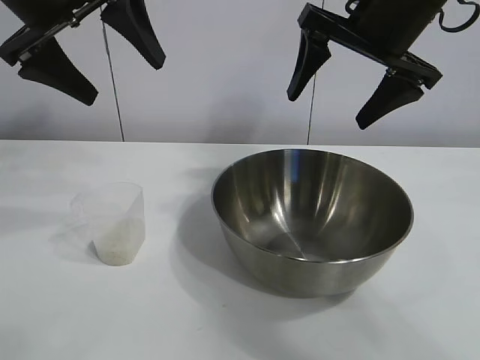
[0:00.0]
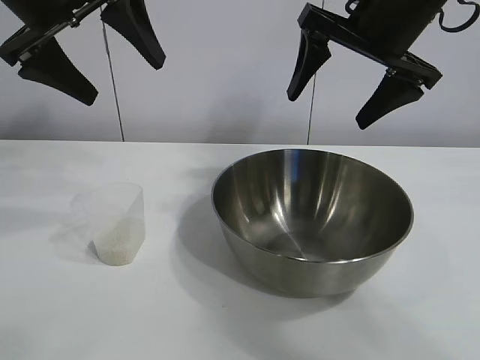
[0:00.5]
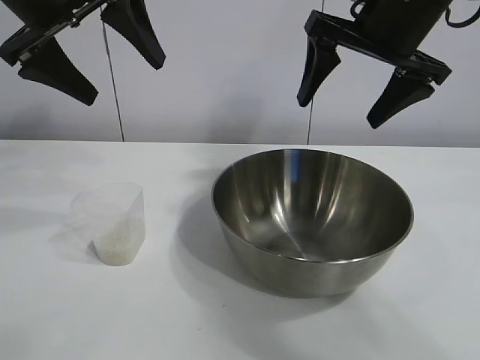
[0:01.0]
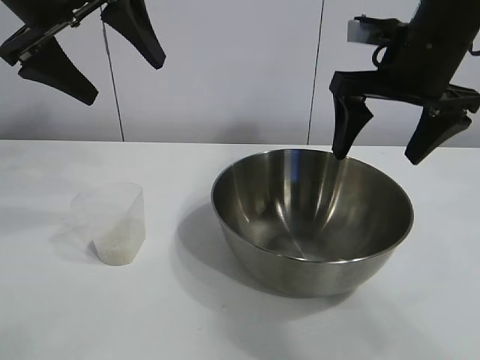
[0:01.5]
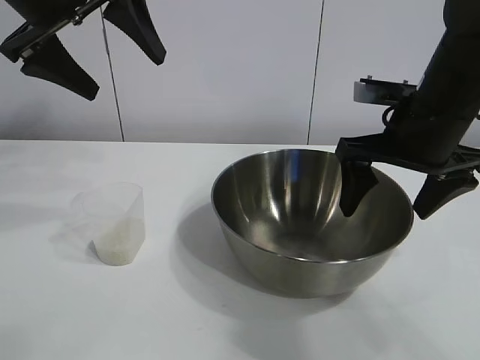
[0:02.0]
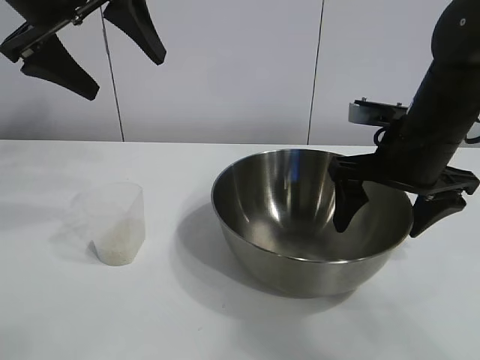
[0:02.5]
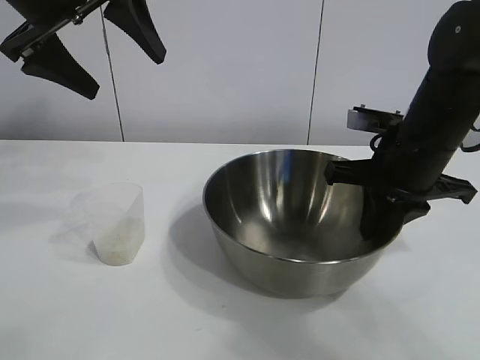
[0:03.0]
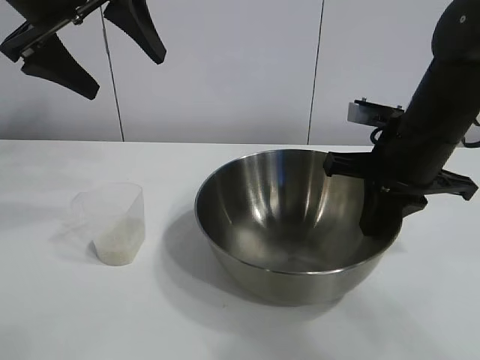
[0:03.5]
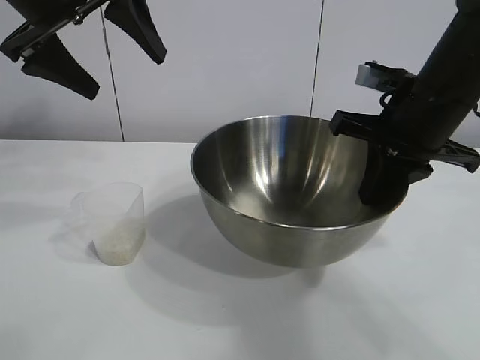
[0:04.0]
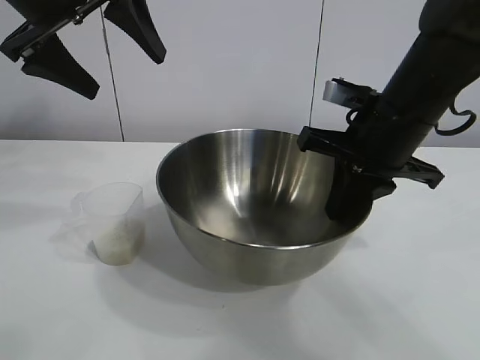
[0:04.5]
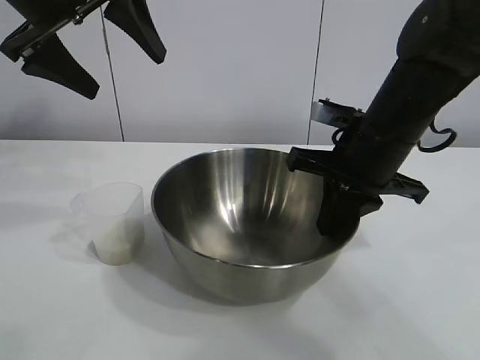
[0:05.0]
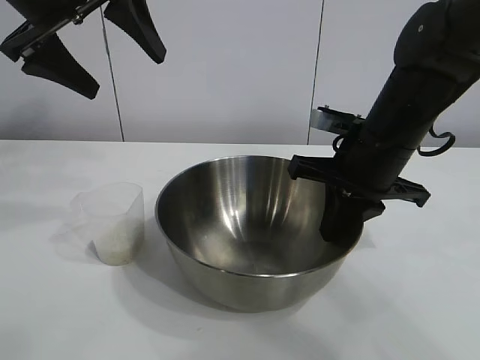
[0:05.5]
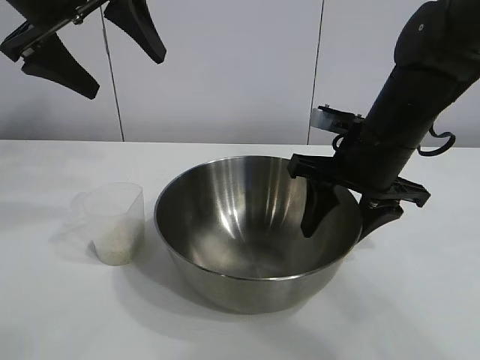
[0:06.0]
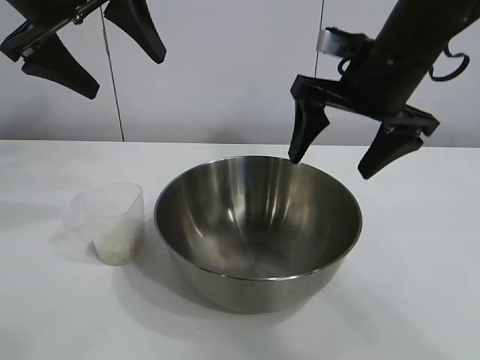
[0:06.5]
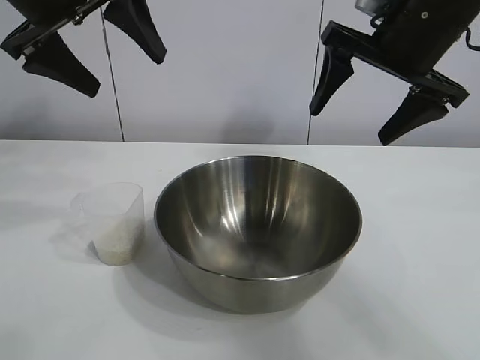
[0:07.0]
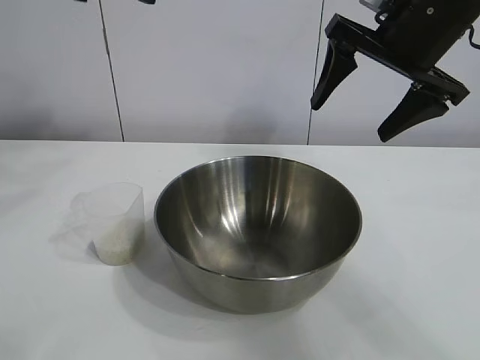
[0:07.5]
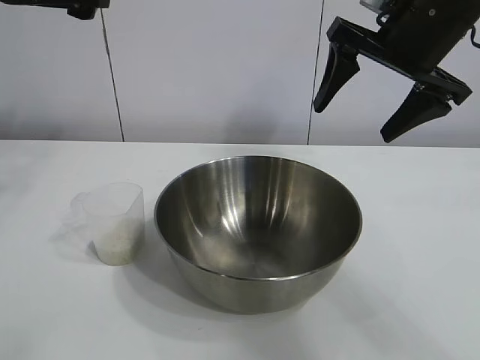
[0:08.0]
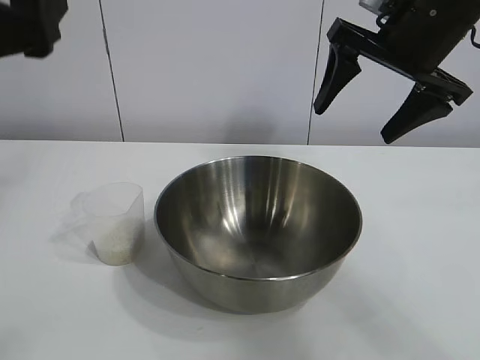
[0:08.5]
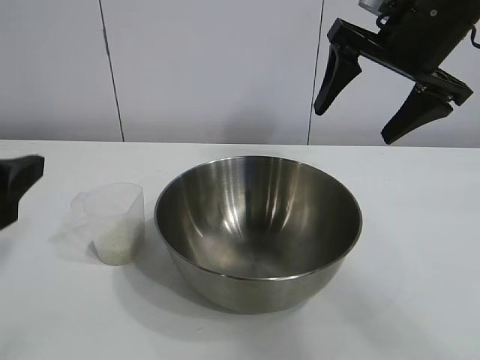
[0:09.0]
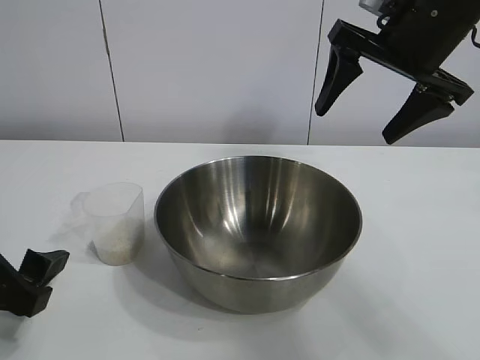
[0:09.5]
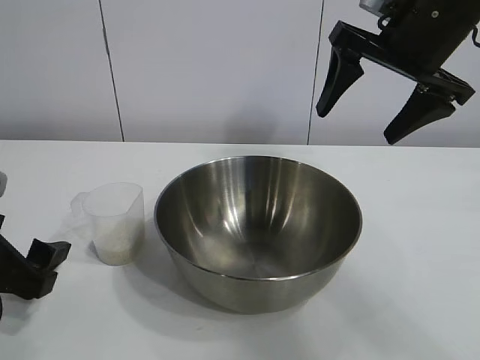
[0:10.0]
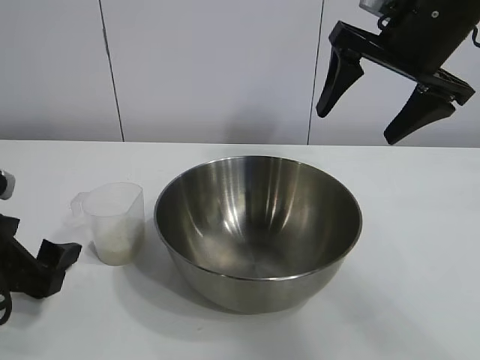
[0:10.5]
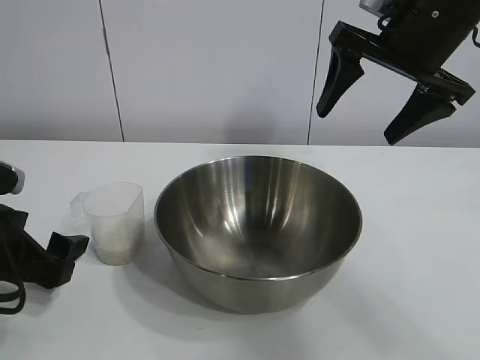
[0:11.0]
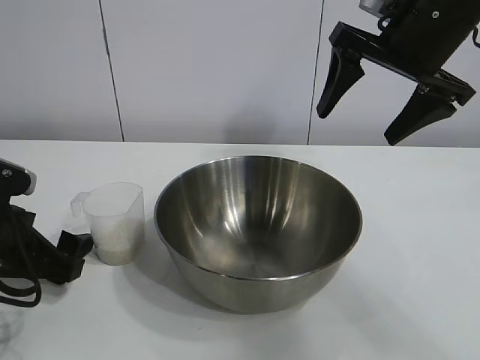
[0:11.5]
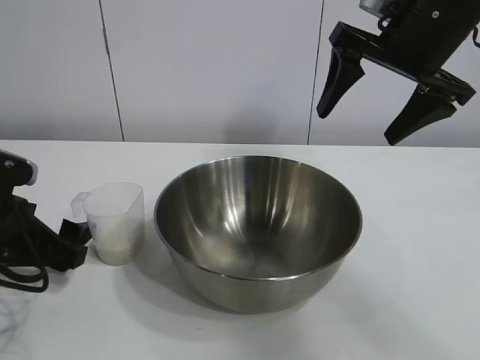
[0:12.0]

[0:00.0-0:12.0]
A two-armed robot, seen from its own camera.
Task of the whole recording: the right gripper grasp the rice container and place it in the center of the table, the left gripper grasp the rice scoop and pour the rice into the rice container.
Step, 1.0 to 5.5 s: Move the bowl in the center of view with right gripper.

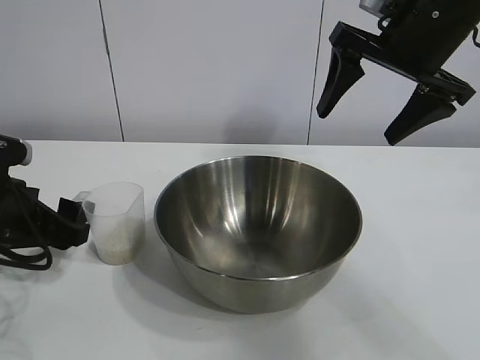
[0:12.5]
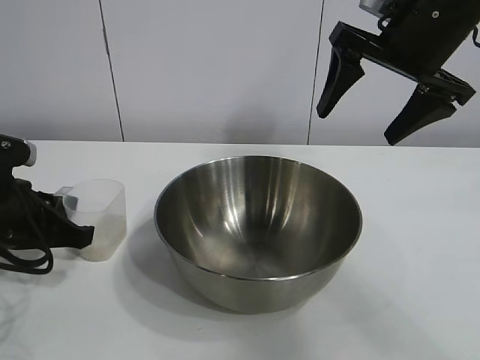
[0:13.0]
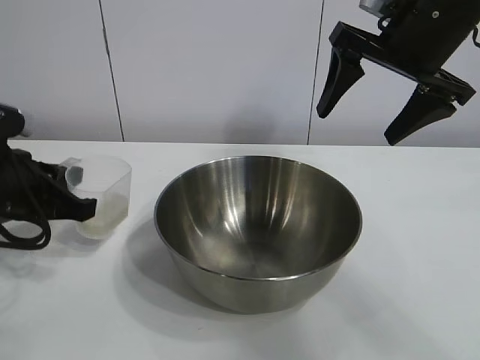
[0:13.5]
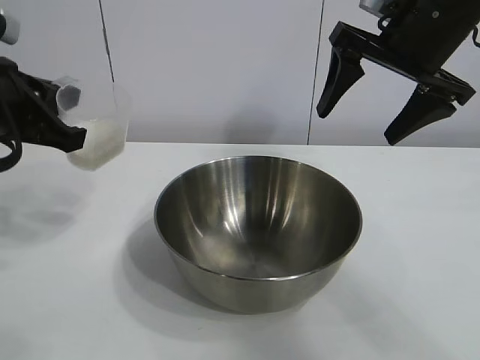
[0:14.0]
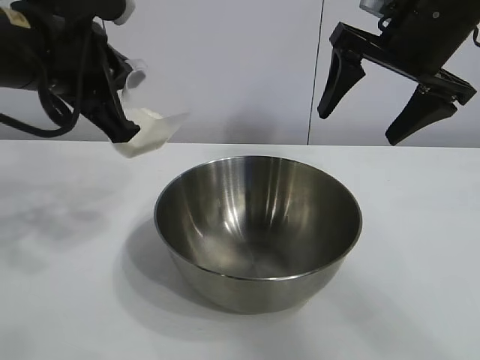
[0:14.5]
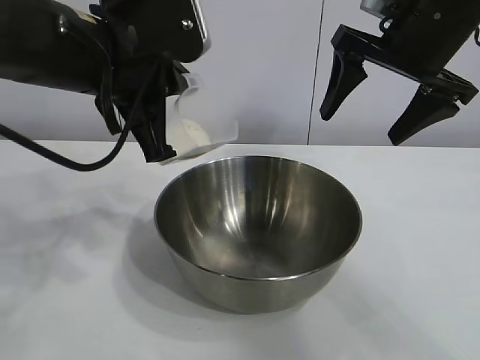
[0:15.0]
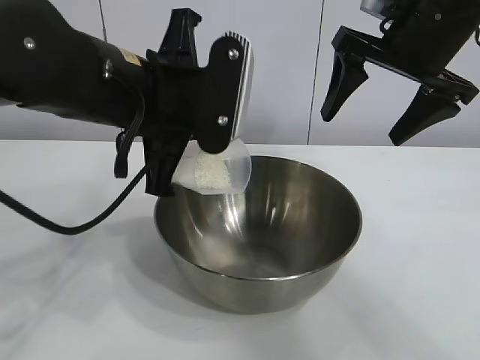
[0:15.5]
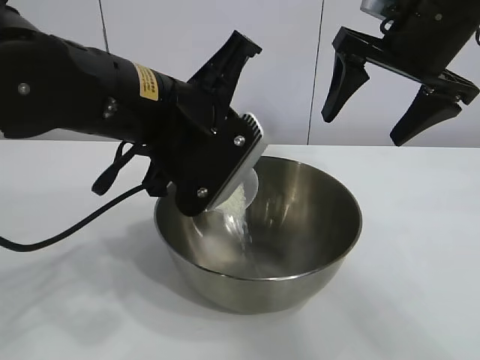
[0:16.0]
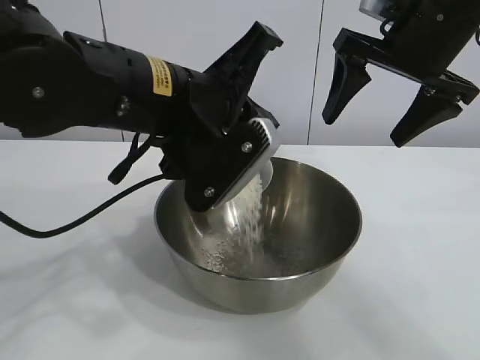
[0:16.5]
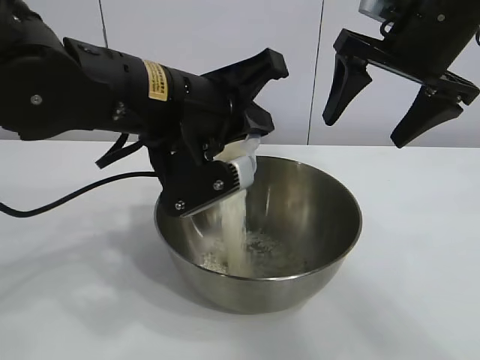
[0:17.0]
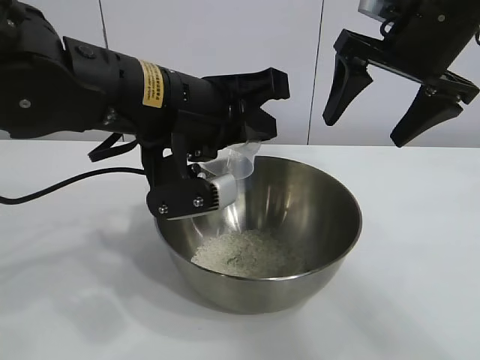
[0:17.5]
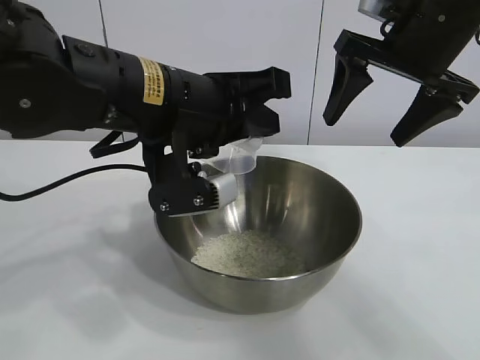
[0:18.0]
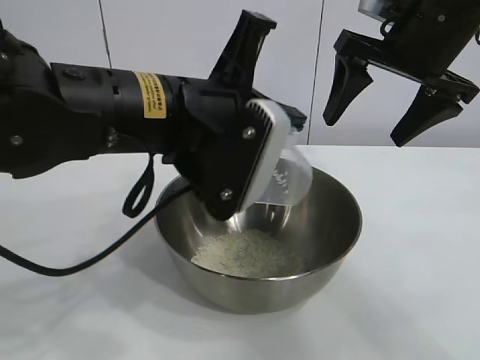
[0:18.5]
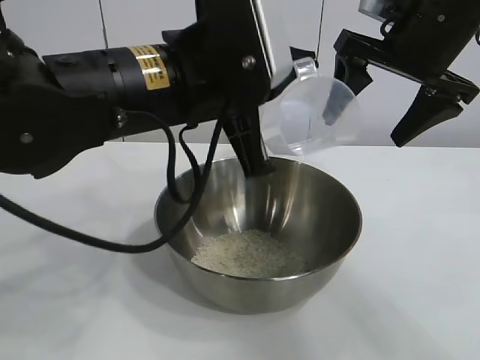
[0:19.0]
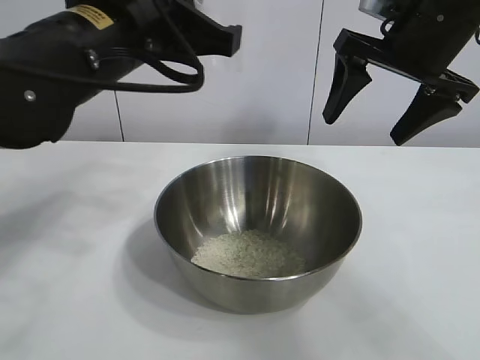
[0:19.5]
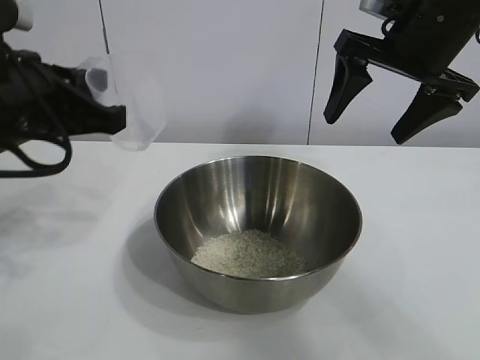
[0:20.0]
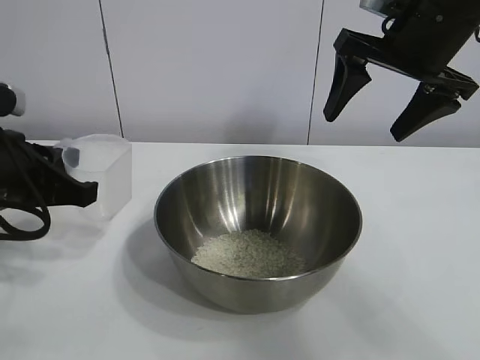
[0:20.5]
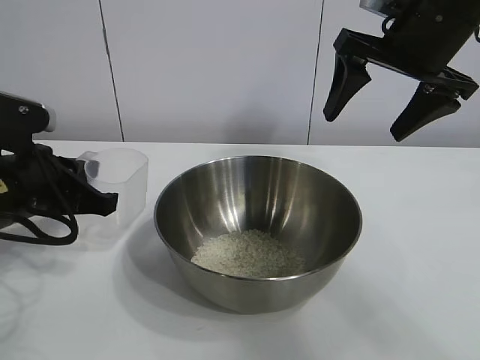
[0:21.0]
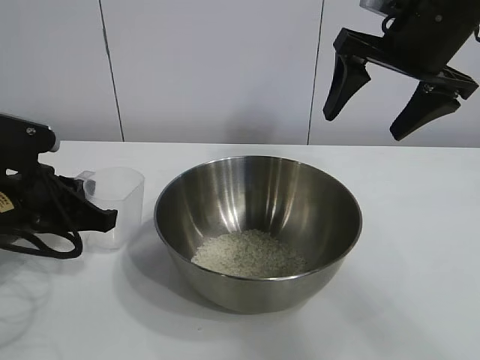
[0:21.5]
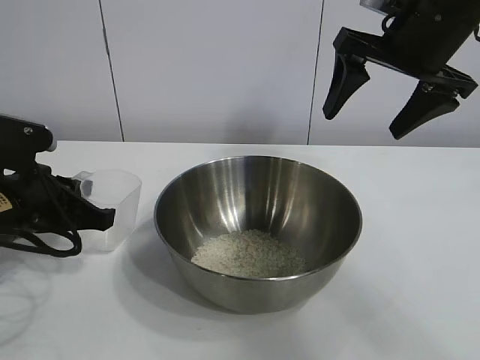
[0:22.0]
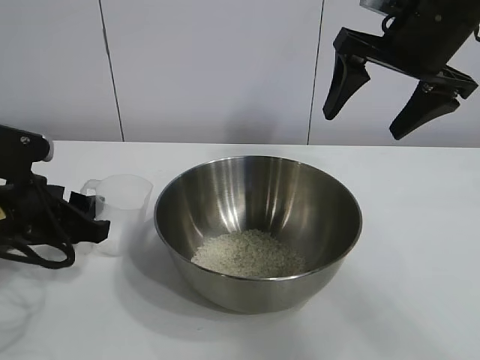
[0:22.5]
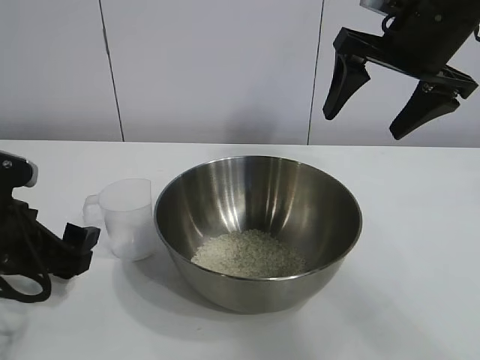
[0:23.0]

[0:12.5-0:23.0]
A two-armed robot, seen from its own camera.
Task of the whole recording: the right gripper grasp the rice container and place it in the center of the table, the left gripper grasp the rice scoop and pour the rice into the rice container.
Step, 13.5 to 18.0 s: Pour the rice from the cup into the bowl with the left gripper.
Step, 18.5 to 22.5 s: Place the cup on the table with the left gripper.

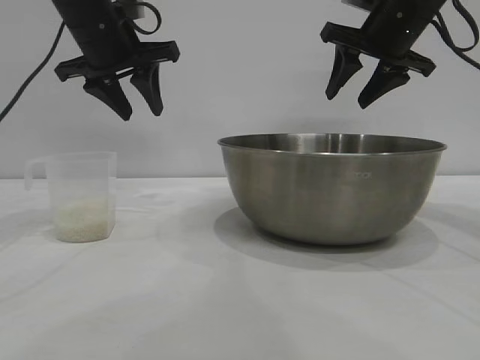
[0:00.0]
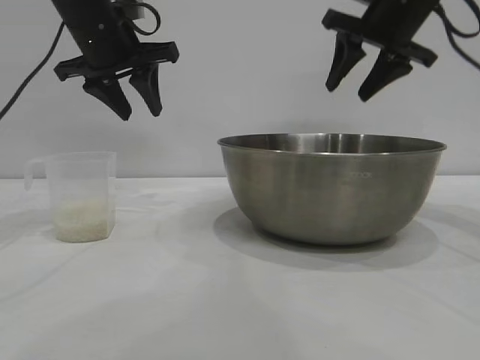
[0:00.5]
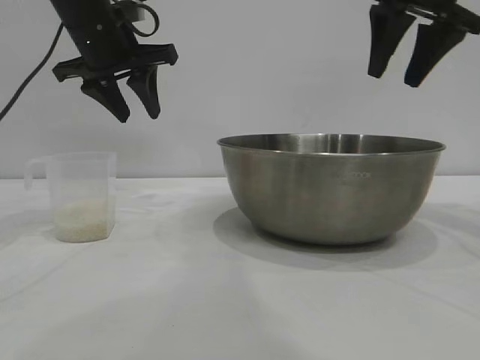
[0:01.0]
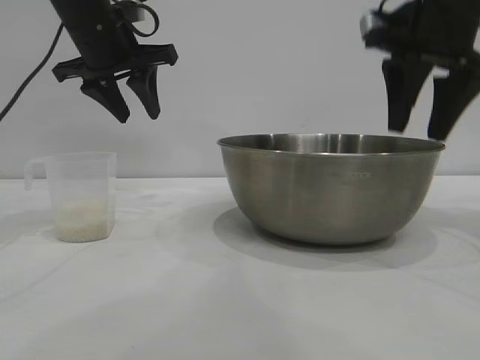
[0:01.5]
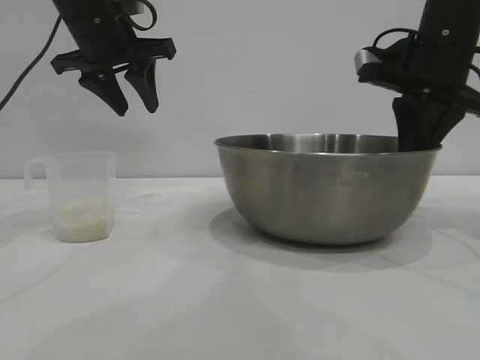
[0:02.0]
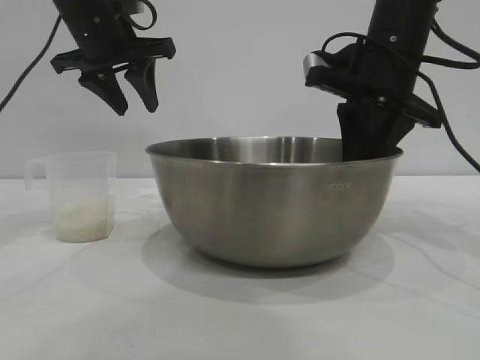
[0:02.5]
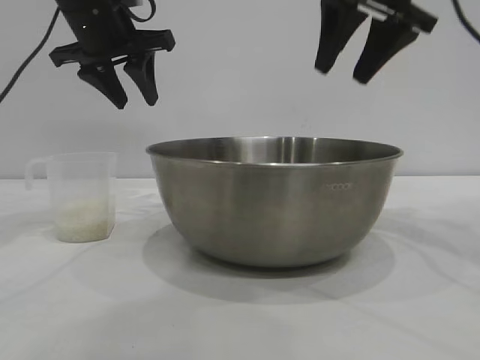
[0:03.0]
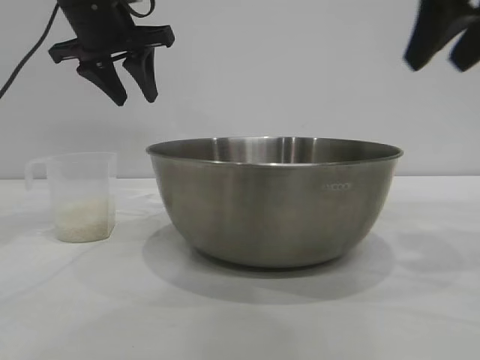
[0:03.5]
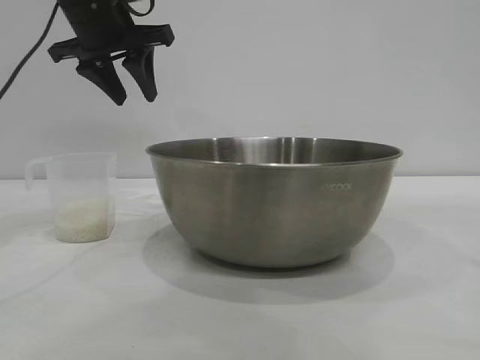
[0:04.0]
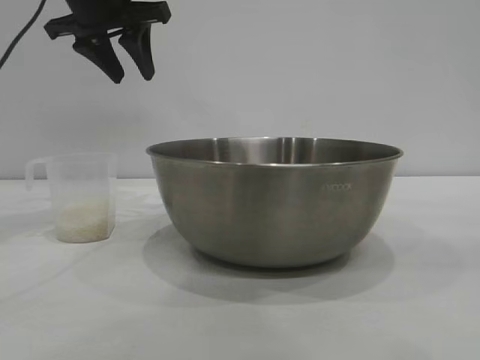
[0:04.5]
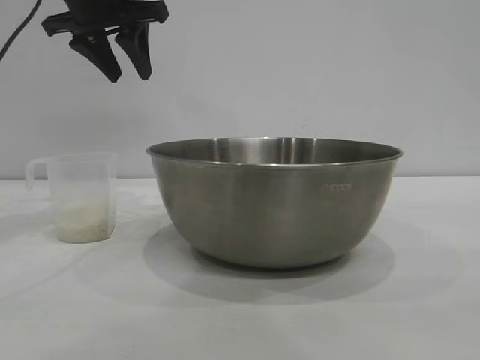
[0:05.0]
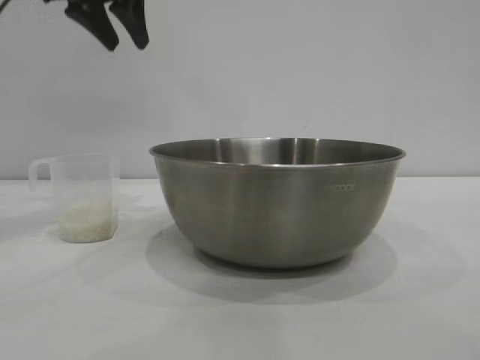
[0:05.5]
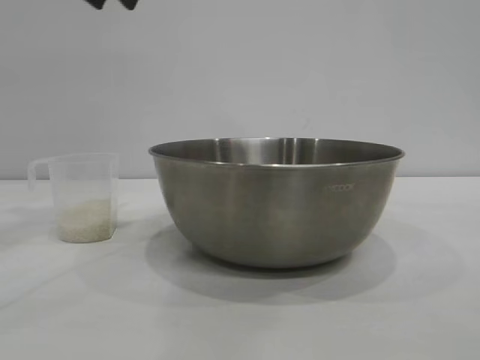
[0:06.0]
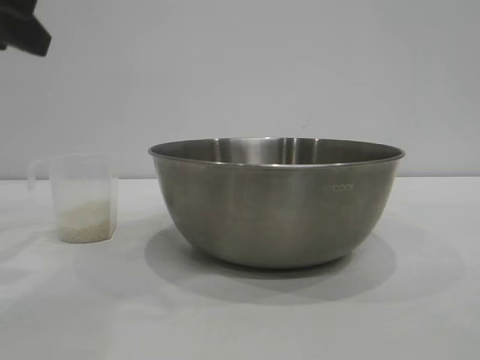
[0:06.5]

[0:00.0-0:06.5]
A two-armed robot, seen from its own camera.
Task of the whole recording: the right gripper grasp the rice container and place it in the center of the table, the left gripper grasp the rice scoop and pour the rice into the rice container.
Step, 0.0 to 2.5 s: Move the bowl to the center of view with the right gripper.
